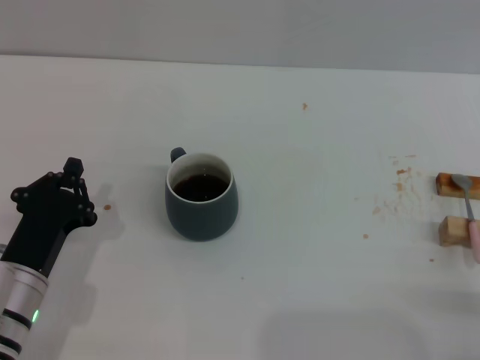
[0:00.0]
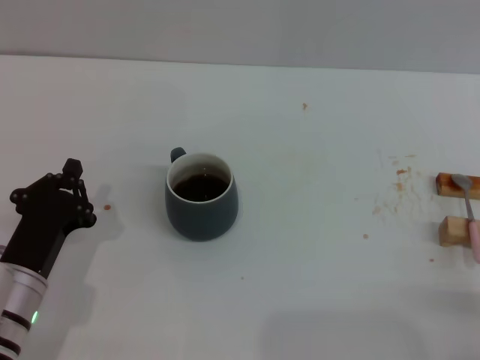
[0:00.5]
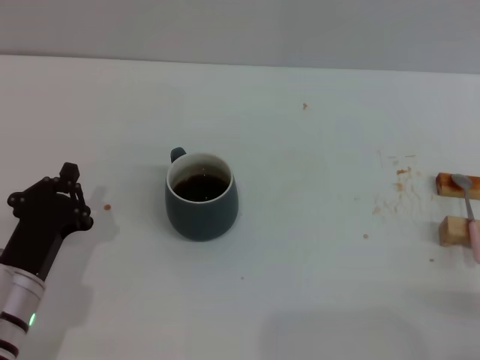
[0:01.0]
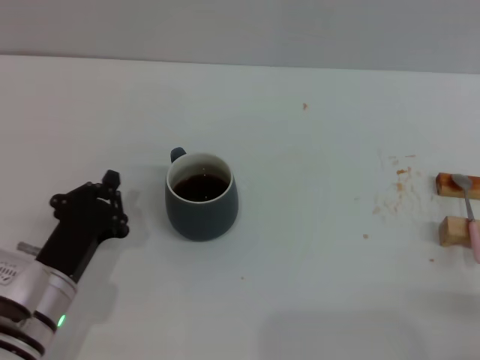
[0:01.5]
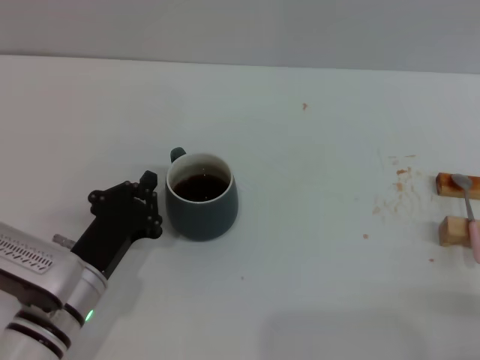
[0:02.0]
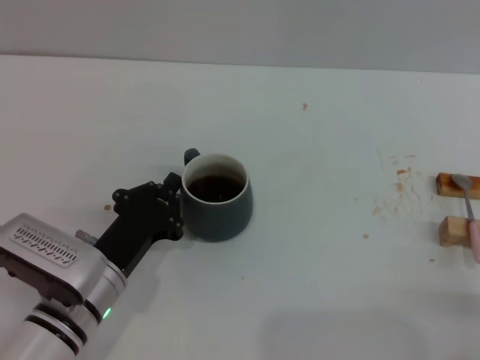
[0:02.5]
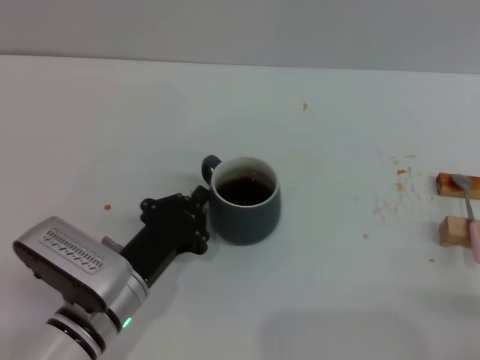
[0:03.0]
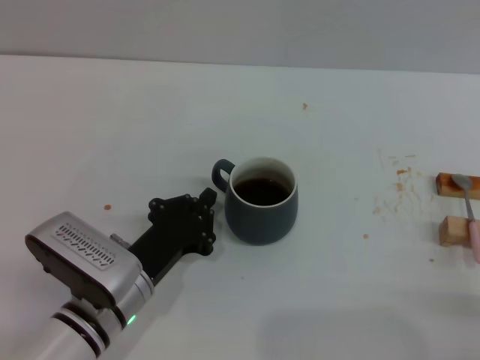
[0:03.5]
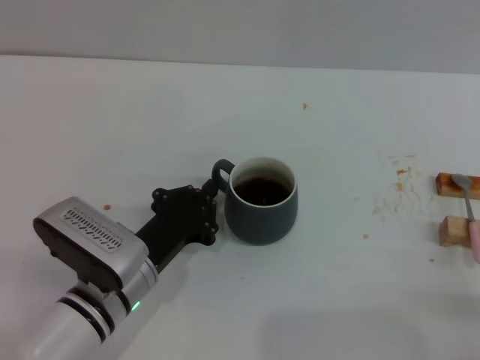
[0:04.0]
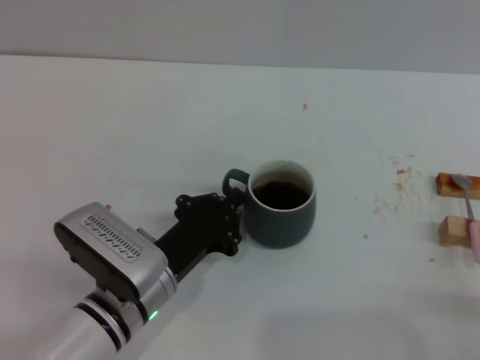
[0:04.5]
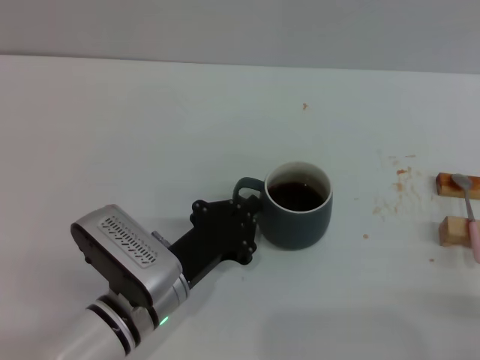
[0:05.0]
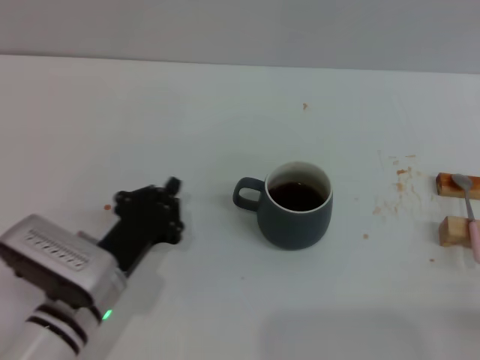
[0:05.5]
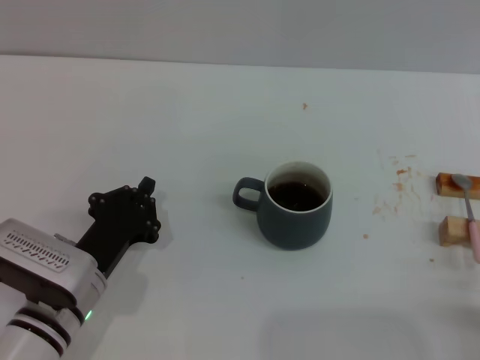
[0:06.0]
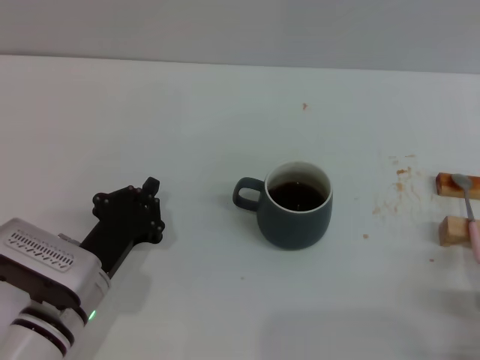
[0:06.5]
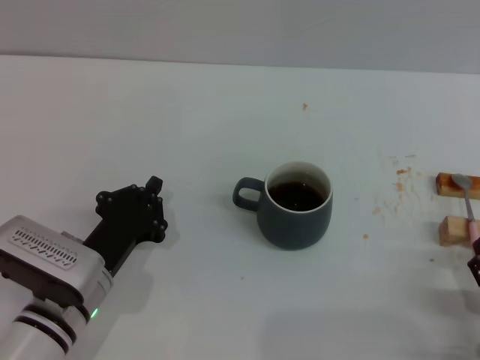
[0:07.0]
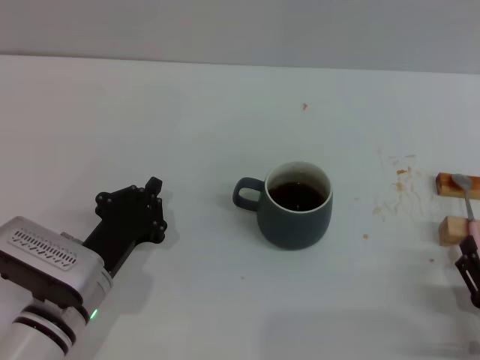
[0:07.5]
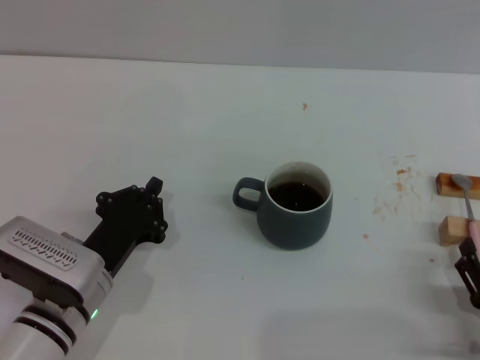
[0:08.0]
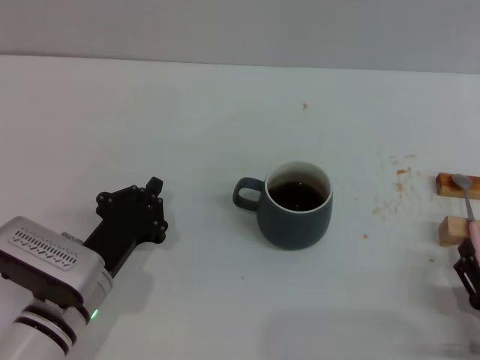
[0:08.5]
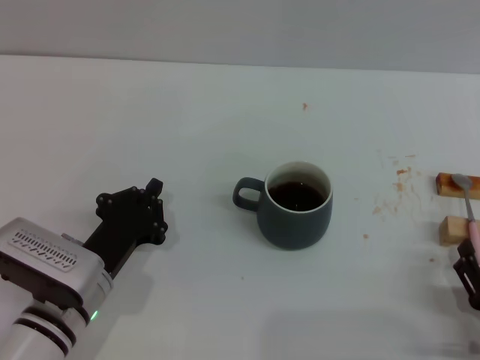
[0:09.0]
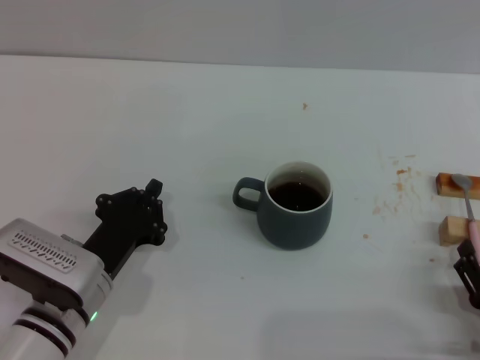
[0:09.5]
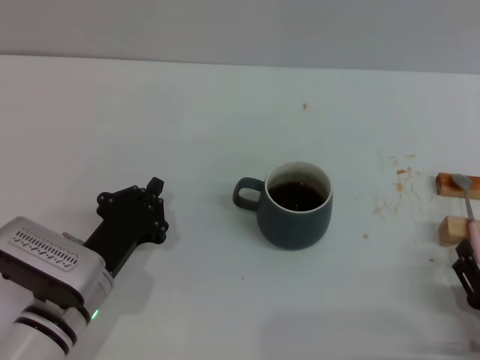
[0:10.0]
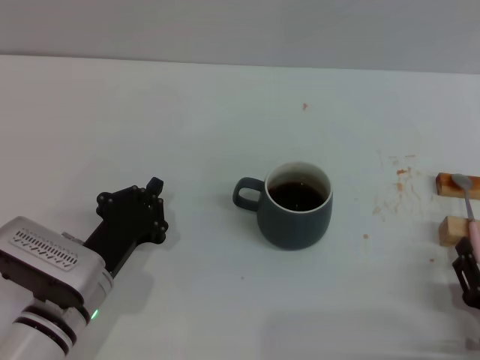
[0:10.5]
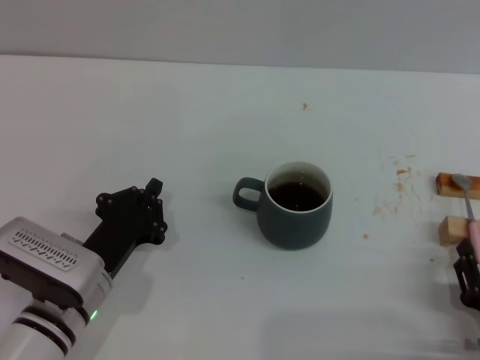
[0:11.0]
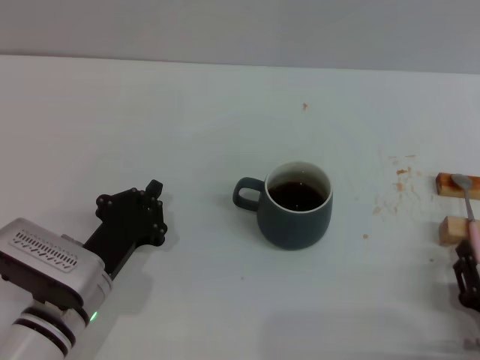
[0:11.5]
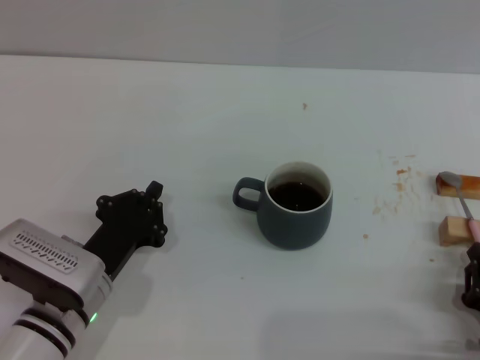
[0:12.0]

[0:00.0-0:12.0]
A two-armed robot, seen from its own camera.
Task of the whole recording: Move the grey cup to the center, lift the pink spoon, stir it three times in the cup, and put the spoon into the cup.
Step, 0:00.0 to 0:05.0: Move the cup with coffee to the center of view with the left gripper.
0:00.0 to 0:02.0: The grippers stay close to where they were, moving slightly.
0:02.0 to 0:04.0: The left gripper moves to the right, some 5 cm.
0:04.0 to 0:06.0: The grippers move only a little.
0:06.0 to 0:08.0: The grippers move only a little.
0:08.0 to 0:10.0: The two grippers keep their place.
0:10.0 to 0:12.0: The right gripper closes its fingers.

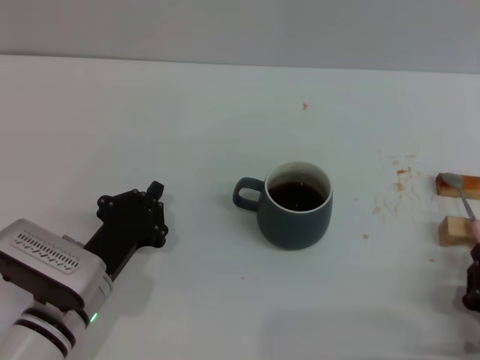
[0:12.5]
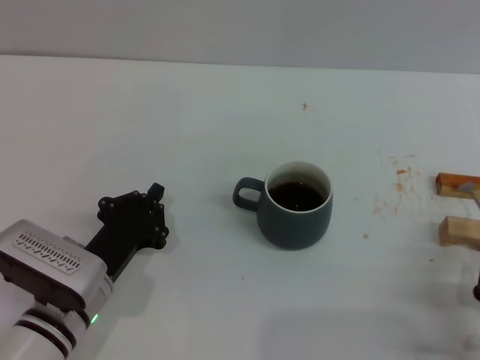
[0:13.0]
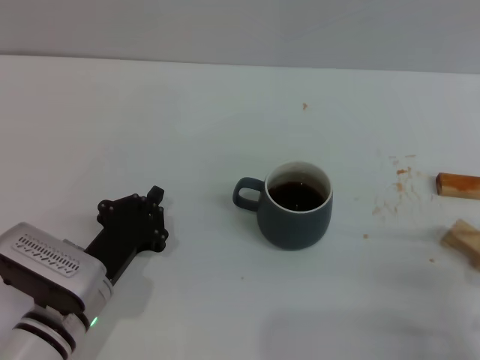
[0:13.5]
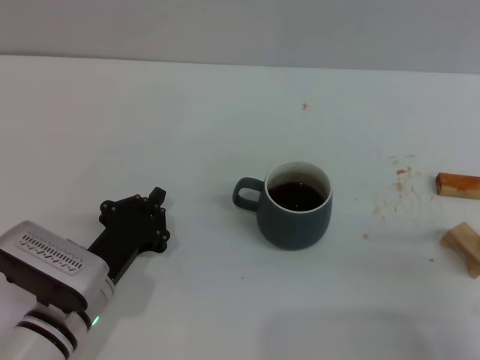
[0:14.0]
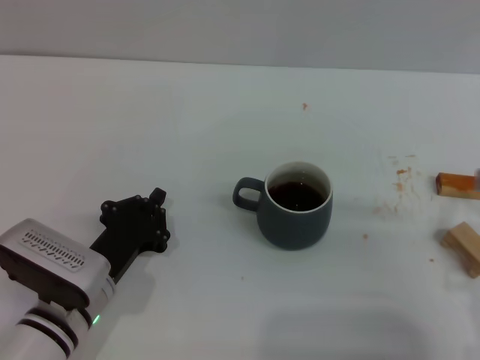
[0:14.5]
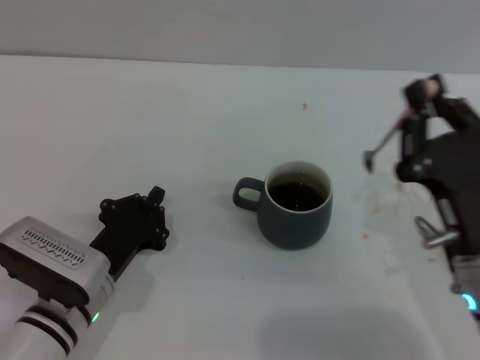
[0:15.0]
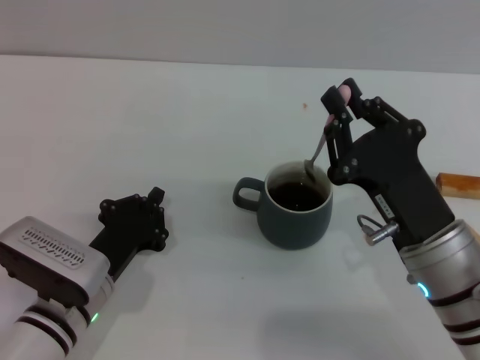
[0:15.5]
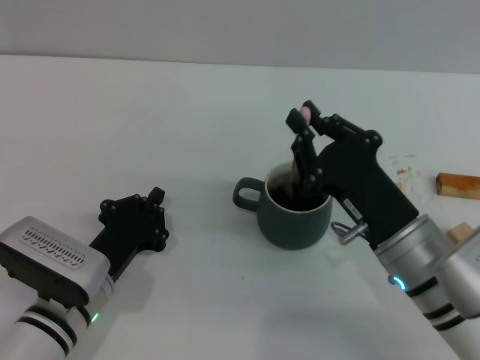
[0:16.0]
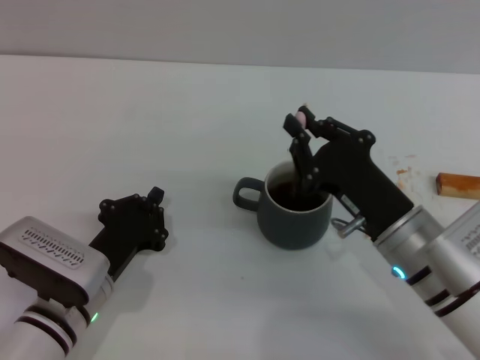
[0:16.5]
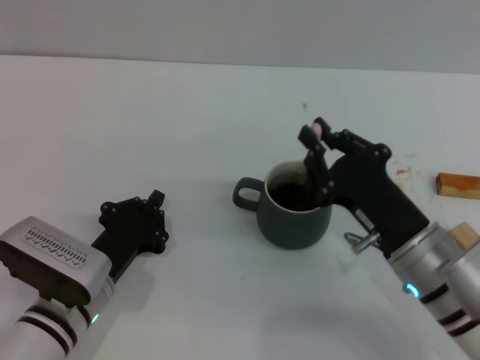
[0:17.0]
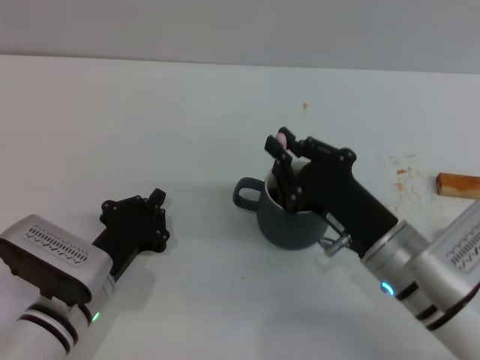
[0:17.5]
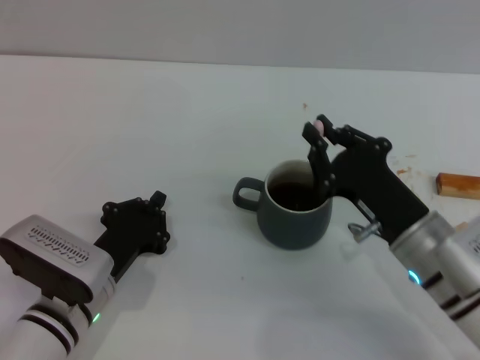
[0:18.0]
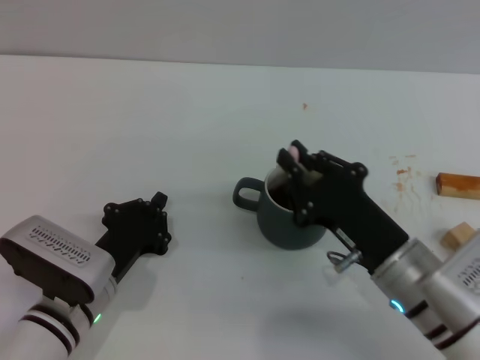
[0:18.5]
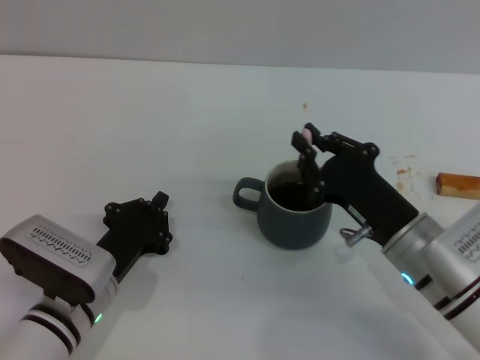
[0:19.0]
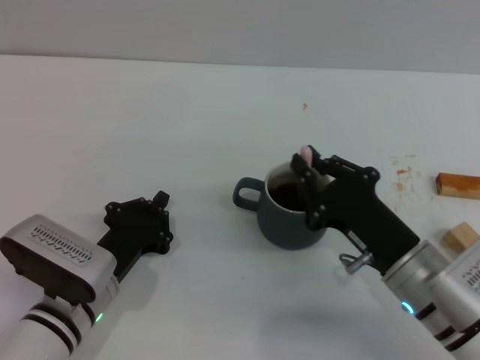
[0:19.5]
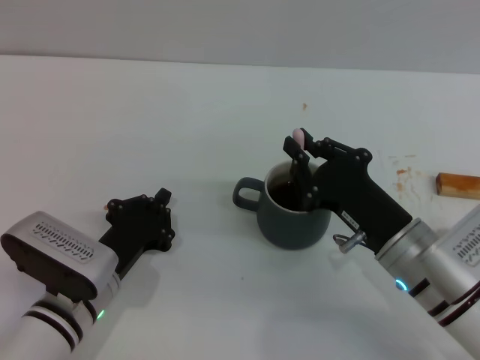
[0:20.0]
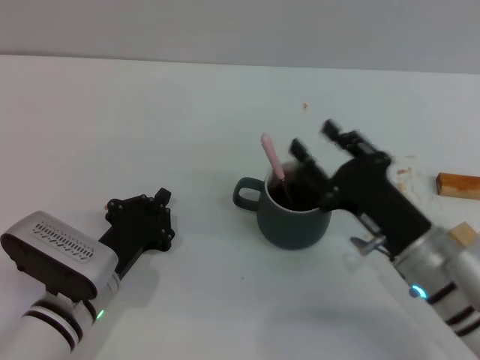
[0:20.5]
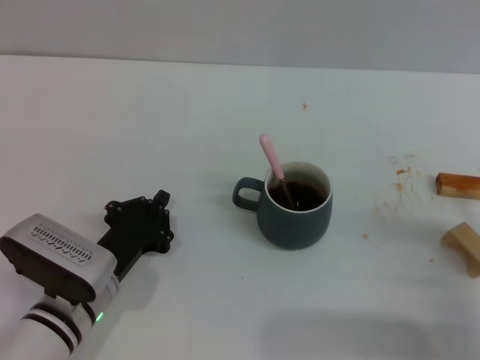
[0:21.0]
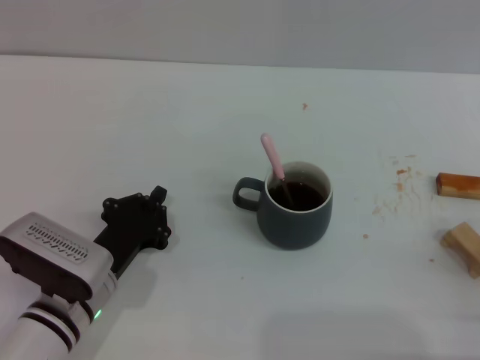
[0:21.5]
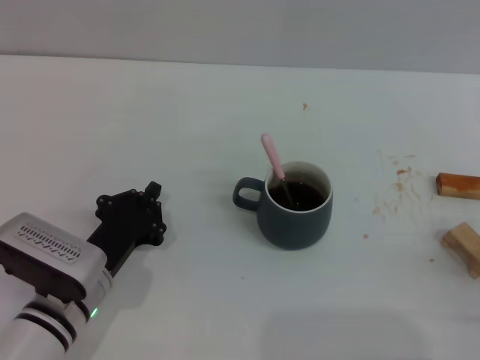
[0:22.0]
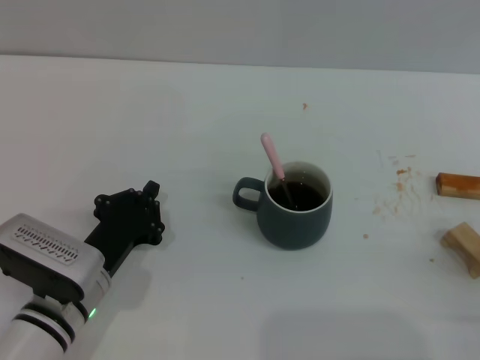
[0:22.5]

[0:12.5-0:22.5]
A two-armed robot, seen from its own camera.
Task of the whole recording: Move the grey cup to the center, lift the pink spoon, stir it three times in the cup, and put the spoon into the cup.
Step, 0:14.0 to 0:20.0: Stir the coffee in the cup with the right gripper.
0:12.5 to 0:14.5: The right gripper goes roughly 10 cm upward.
0:14.5 to 0:16.5: The right gripper moves forward and to the left, about 10 cm.
0:16.5 to 0:18.5: There are only small adjustments of the grippers.
0:18.5 to 0:20.5: The right gripper opens.
0:20.5 to 0:22.5: The right gripper moves to the right and backward, some 20 cm, and opens its fingers.
